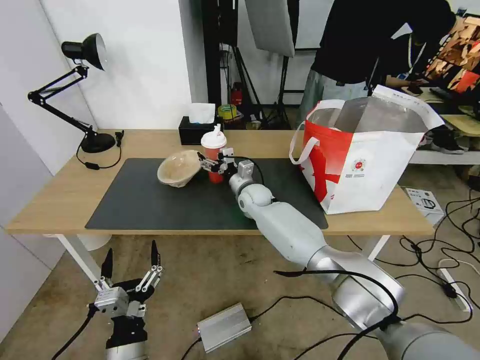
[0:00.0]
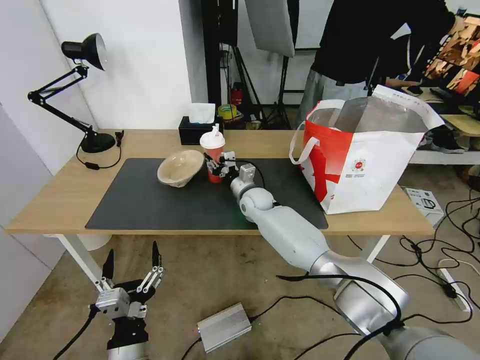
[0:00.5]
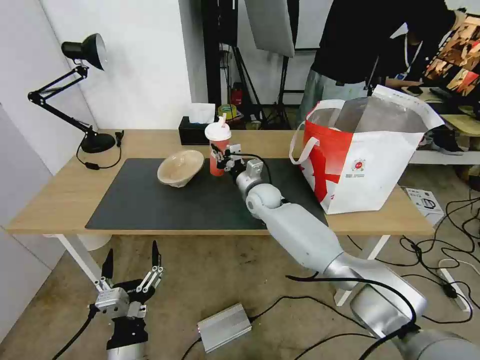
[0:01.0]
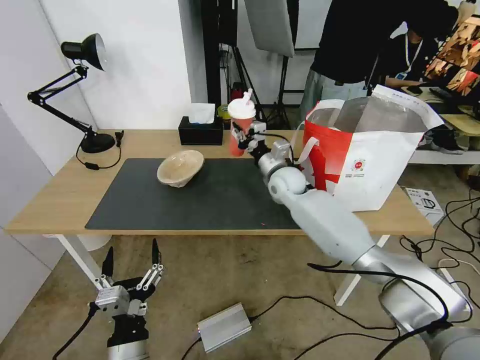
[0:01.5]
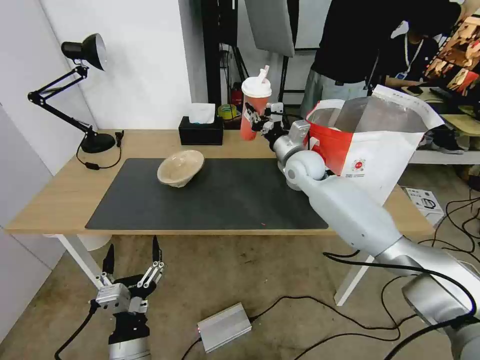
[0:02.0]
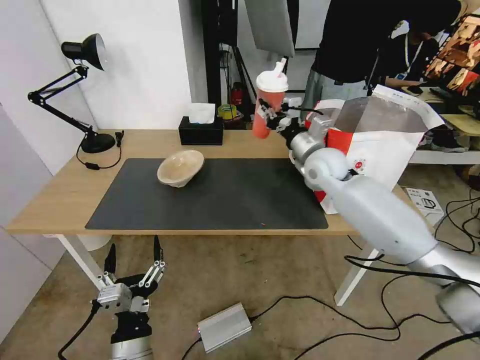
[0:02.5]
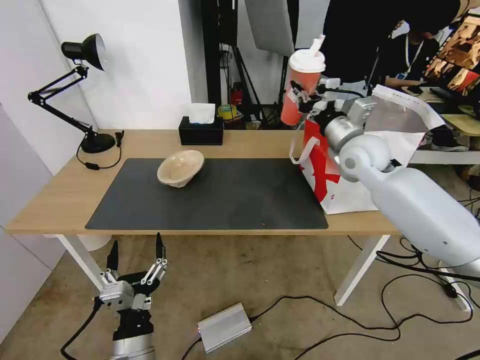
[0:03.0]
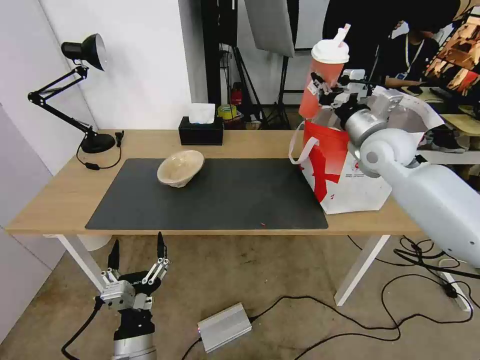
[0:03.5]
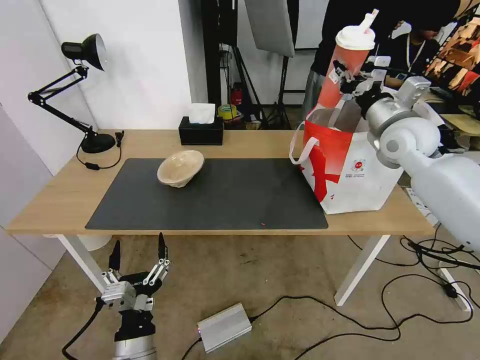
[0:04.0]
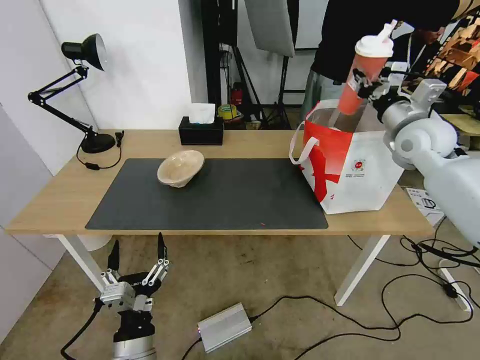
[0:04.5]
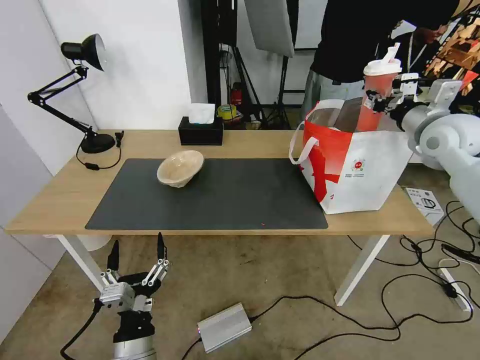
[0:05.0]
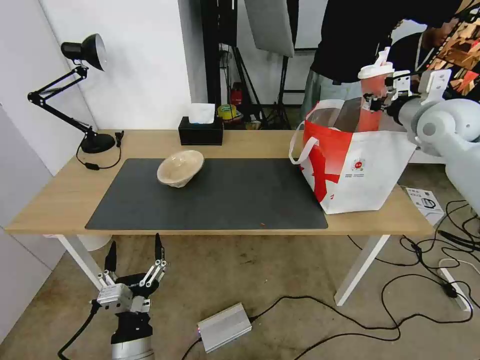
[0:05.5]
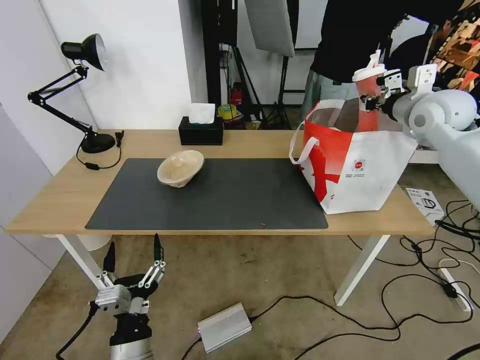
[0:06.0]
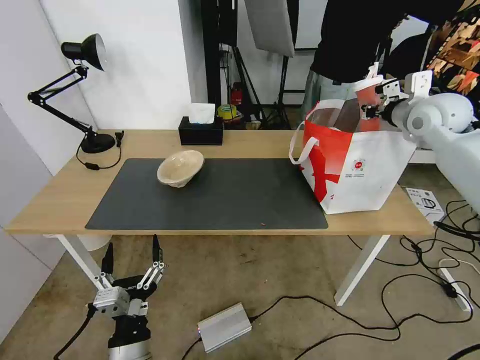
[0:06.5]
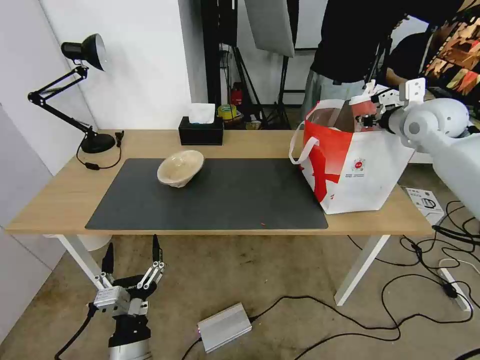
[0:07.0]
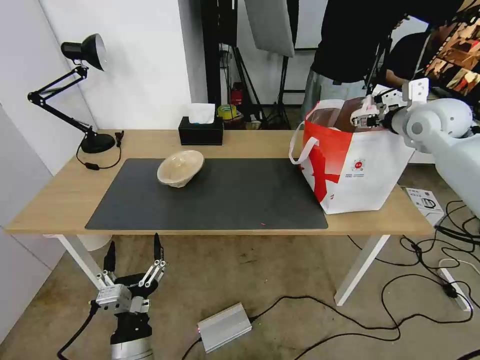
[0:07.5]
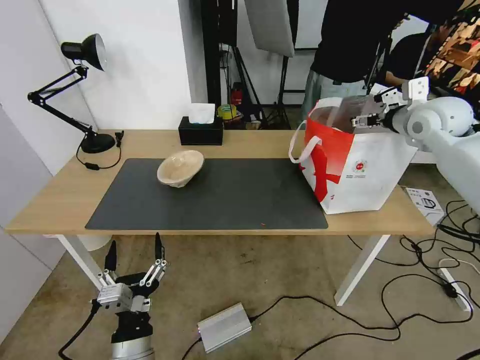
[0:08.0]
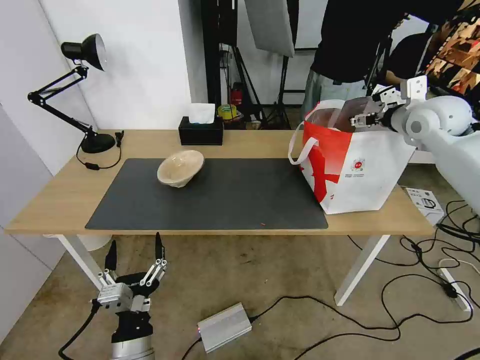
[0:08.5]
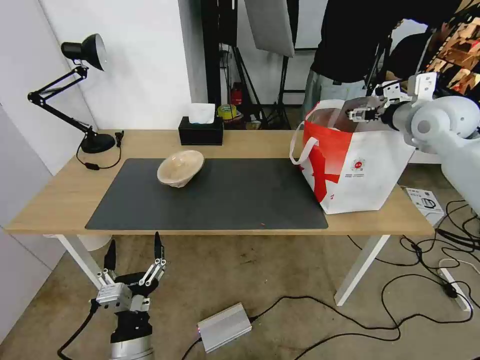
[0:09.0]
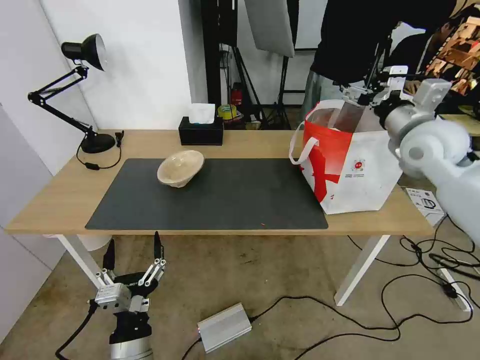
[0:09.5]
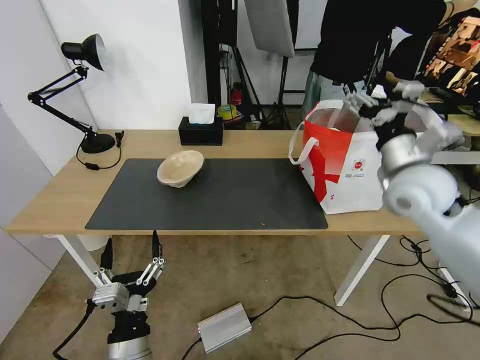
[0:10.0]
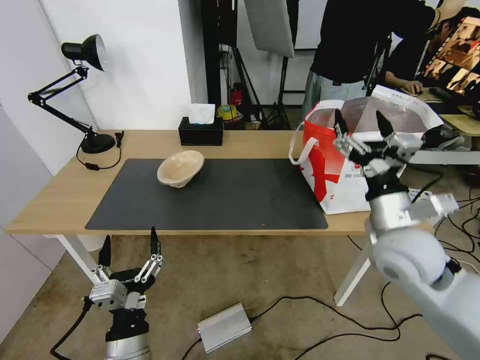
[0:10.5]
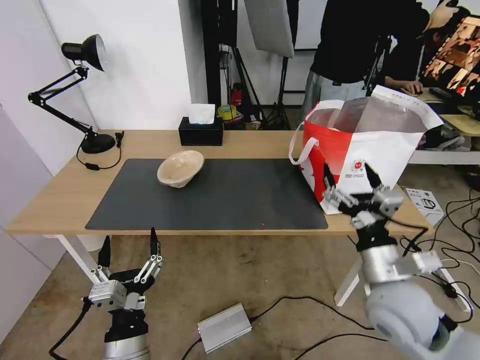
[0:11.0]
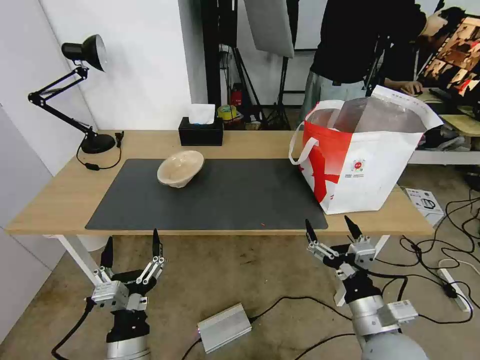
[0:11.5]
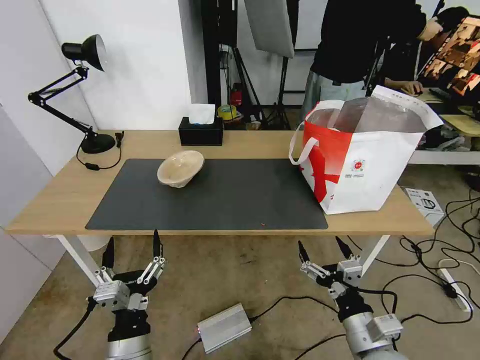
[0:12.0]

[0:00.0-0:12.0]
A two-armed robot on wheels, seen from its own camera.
Task of the whole recording: Pick up the trash from the table and place it into the takeout bag.
0.0 to 2.0 s: The right gripper shifts roughly 15 cm upward and to the right, and closes its fingers.
2.0 to 4.0 s: The right gripper is displaced to the right and upward by roughly 20 cm.
4.0 to 6.0 s: The right gripper moves to the right, about 5 cm.
6.0 to 8.0 s: The right gripper opens its fingers.
8.0 to 10.0 s: The right gripper shifts some 15 cm backward, to the left and downward.
10.0 to 12.0 s: The right gripper moves backward and downward, approximately 35 cm.

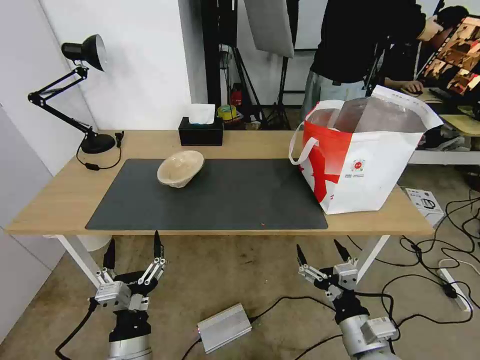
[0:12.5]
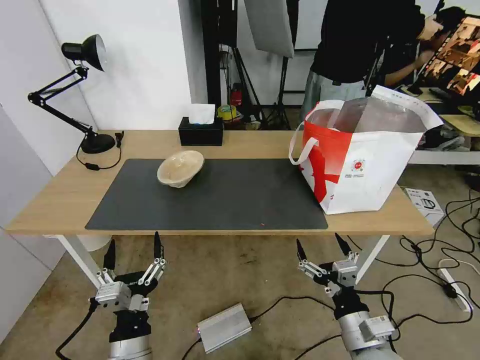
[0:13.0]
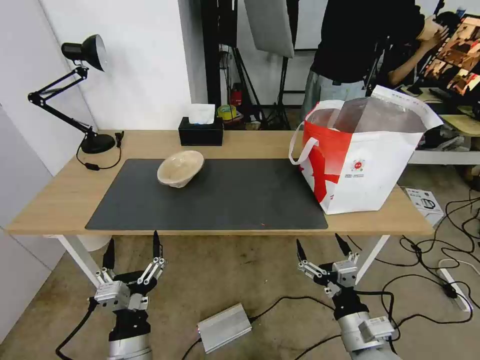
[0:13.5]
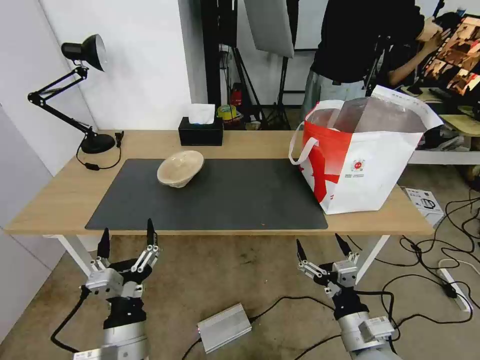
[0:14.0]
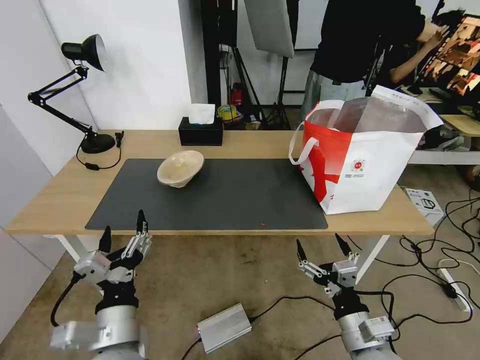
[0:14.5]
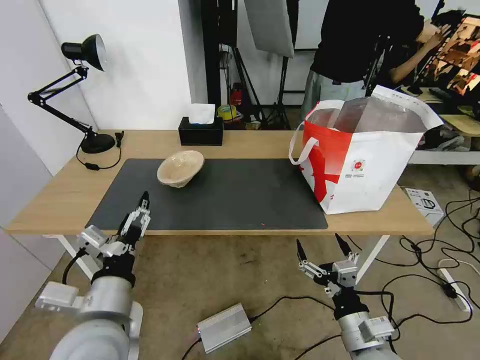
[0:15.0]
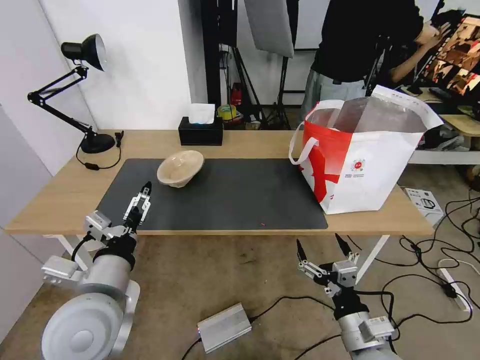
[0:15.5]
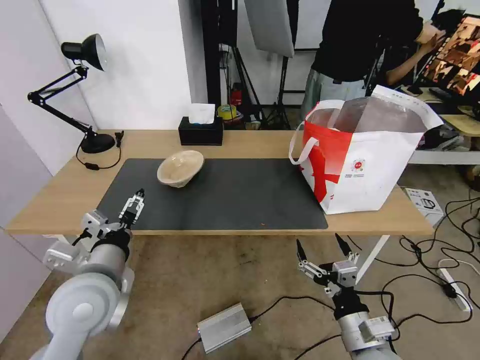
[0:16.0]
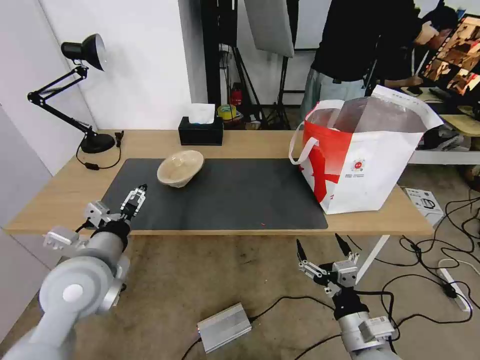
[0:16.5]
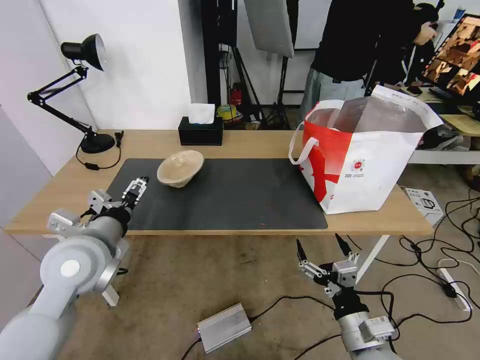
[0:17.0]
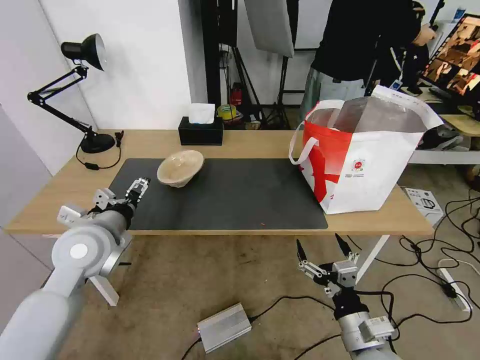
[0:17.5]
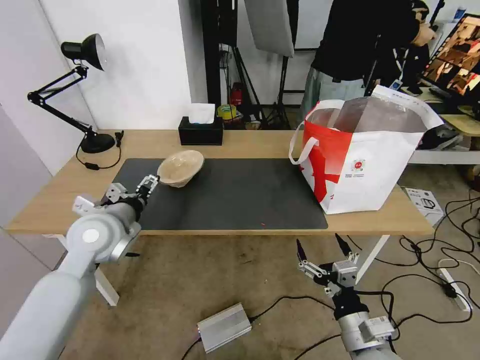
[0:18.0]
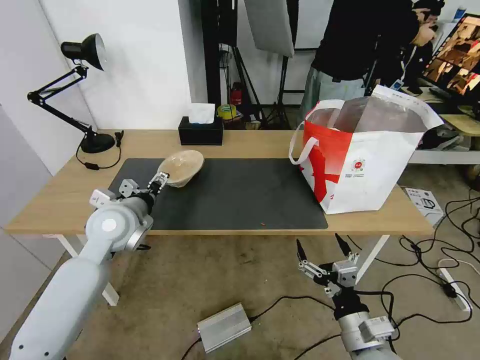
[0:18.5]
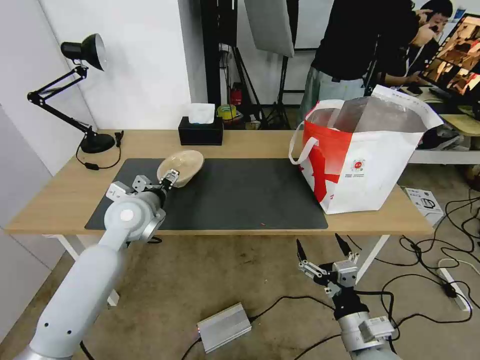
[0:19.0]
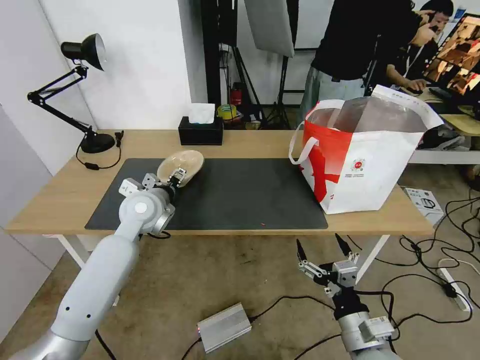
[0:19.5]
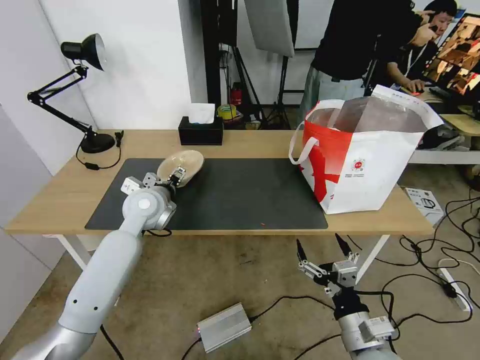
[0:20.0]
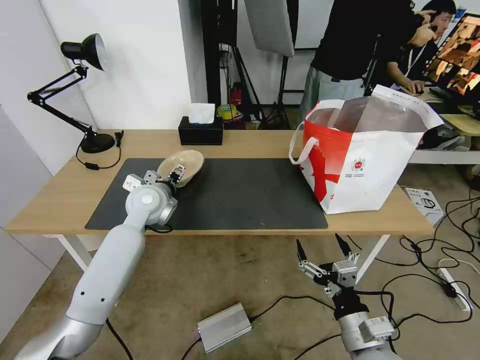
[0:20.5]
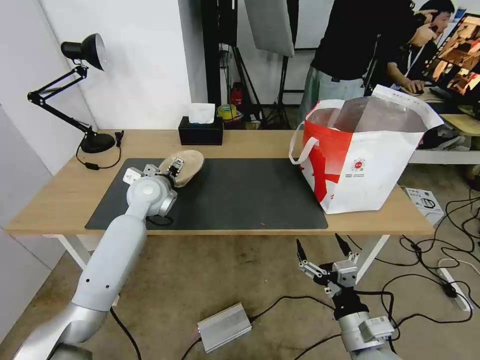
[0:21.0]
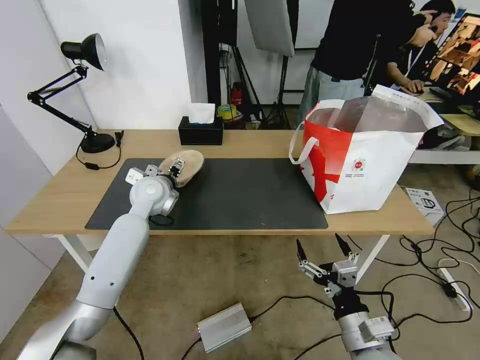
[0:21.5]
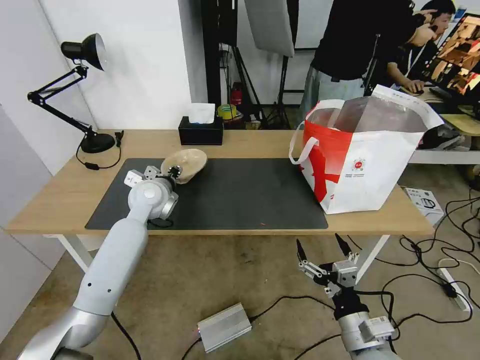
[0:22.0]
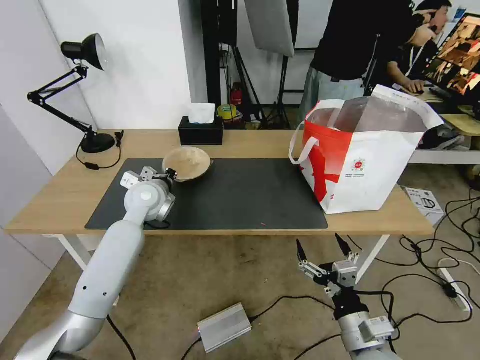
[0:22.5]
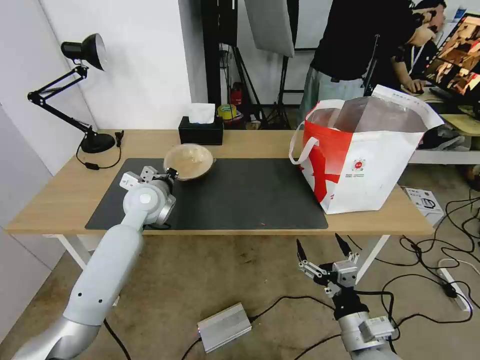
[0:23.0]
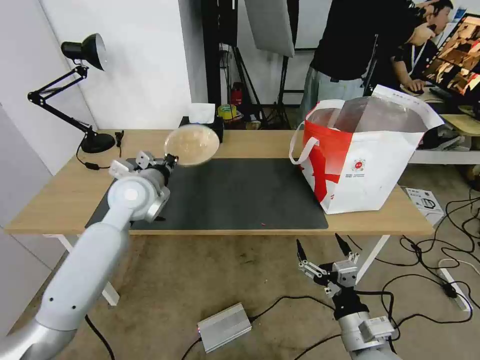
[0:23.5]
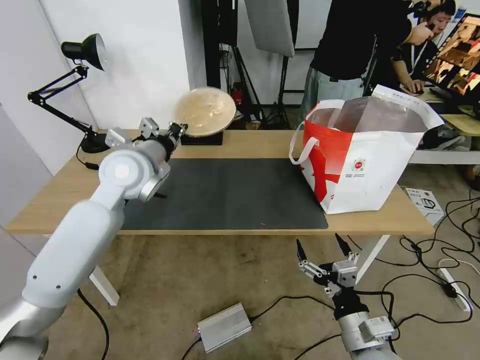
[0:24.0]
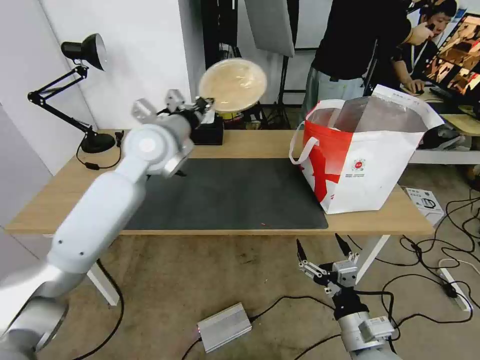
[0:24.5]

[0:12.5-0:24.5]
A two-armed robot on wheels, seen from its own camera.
Task of the whole recording: Pick up the trash from the table and place it into the takeout bag.
12.5 to 14.5 s: The left gripper moves upward, about 5 cm.
14.5 to 16.5 s: The left gripper heads forward, upward and to the left, covering some 15 cm.
16.5 to 18.5 s: The left gripper shifts some 10 cm forward.
18.5 to 20.5 s: The left gripper travels forward by some 10 cm.
20.5 to 22.5 s: The left gripper closes its fingers.
22.5 to 24.5 s: The left gripper moves upward, about 15 cm.

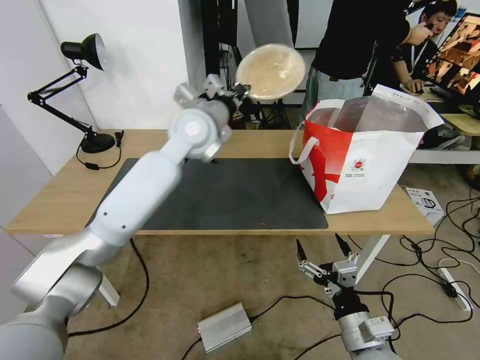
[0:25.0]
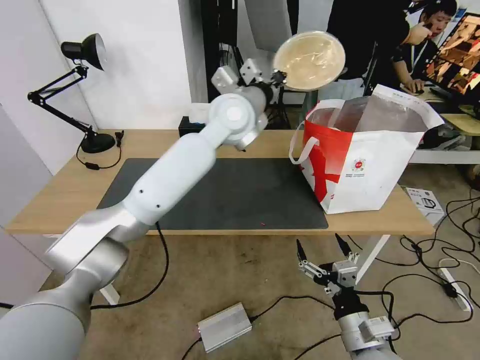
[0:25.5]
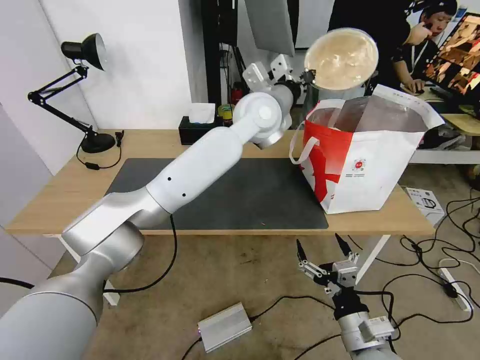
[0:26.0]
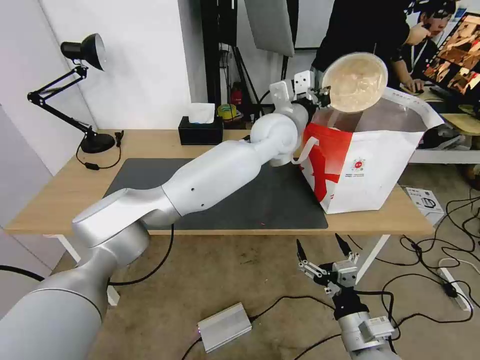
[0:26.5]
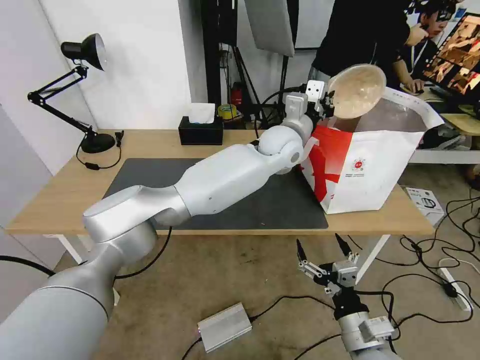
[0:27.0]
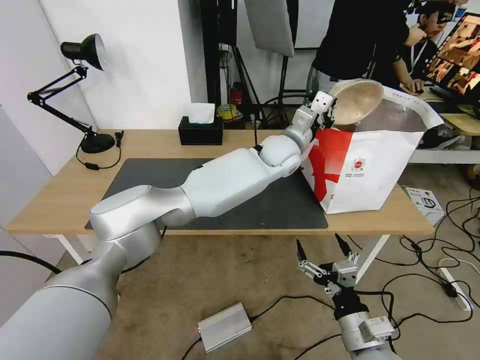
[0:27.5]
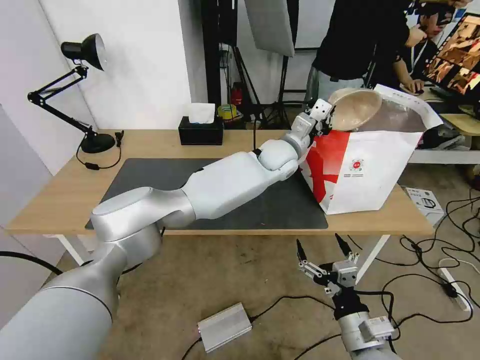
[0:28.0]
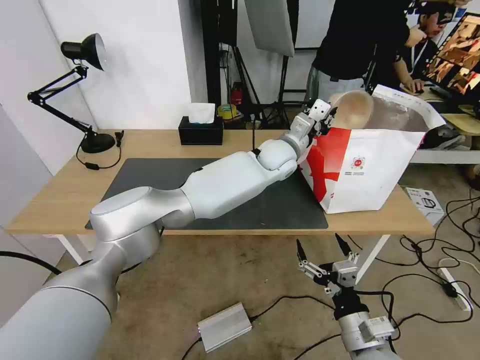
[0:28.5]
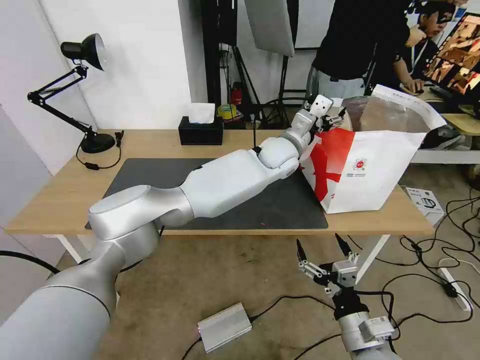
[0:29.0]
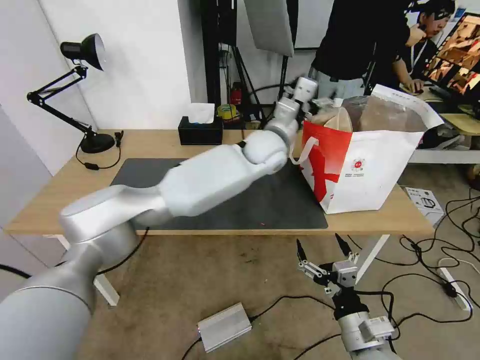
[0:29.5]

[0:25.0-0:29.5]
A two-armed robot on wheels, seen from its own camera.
Task of the whole recording: Pick up the trash from the table and place it into the takeout bag.
25.0 to 27.0 s: The left gripper goes approximately 20 cm to the right.
27.0 to 29.5 s: The left gripper opens up.
